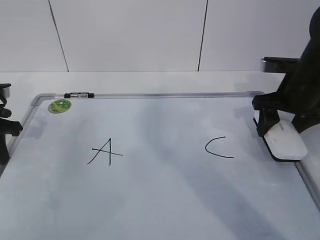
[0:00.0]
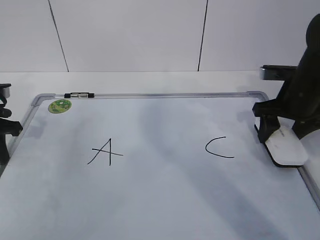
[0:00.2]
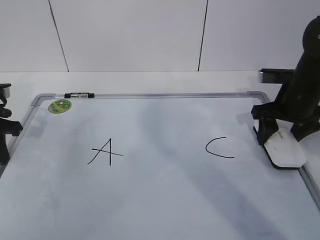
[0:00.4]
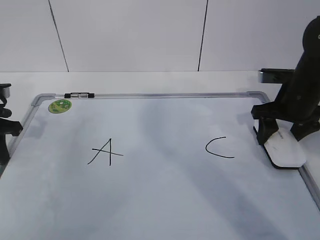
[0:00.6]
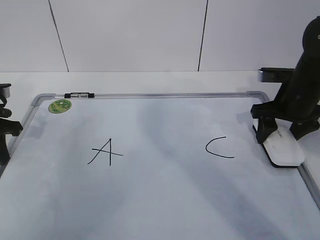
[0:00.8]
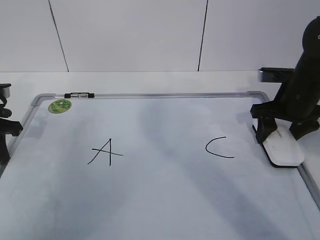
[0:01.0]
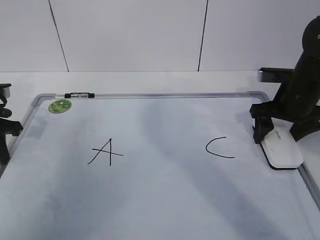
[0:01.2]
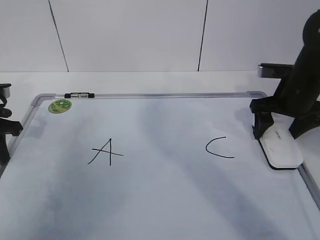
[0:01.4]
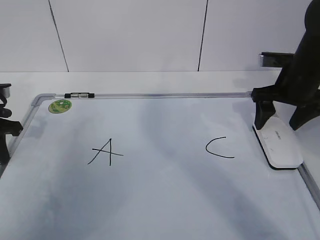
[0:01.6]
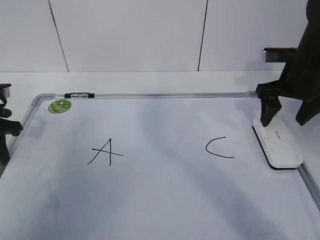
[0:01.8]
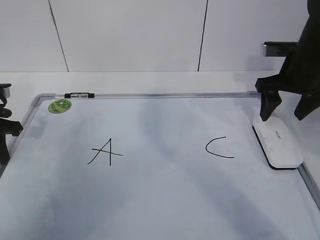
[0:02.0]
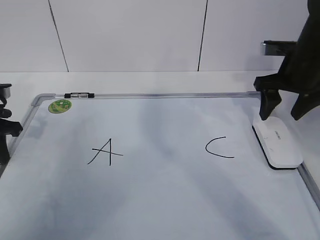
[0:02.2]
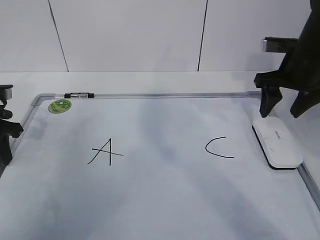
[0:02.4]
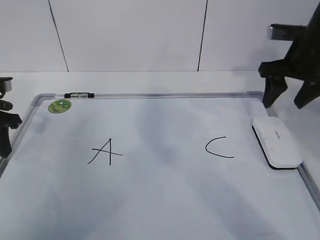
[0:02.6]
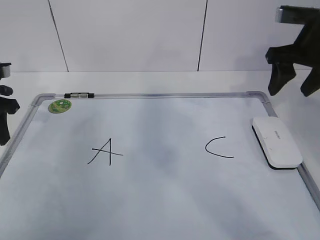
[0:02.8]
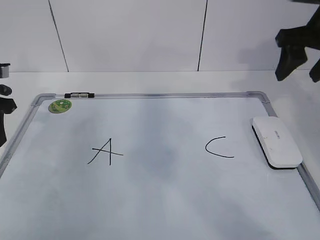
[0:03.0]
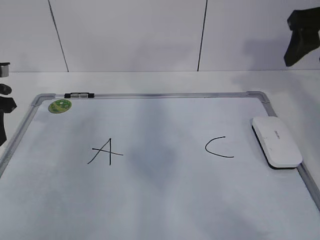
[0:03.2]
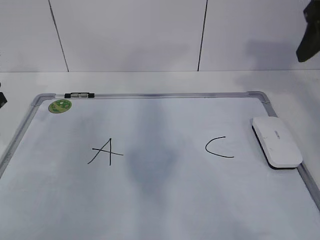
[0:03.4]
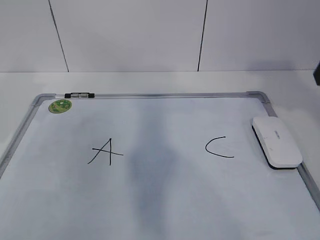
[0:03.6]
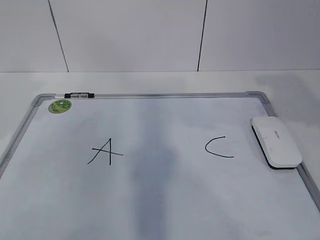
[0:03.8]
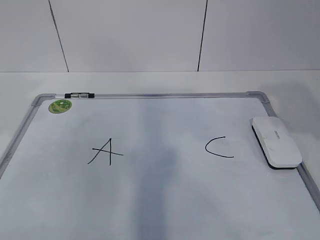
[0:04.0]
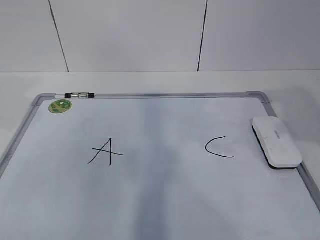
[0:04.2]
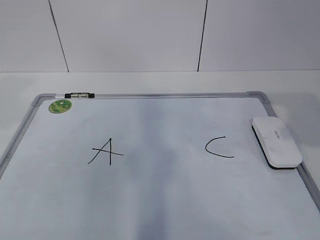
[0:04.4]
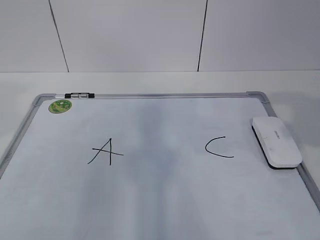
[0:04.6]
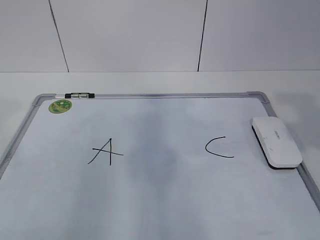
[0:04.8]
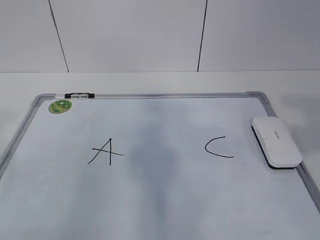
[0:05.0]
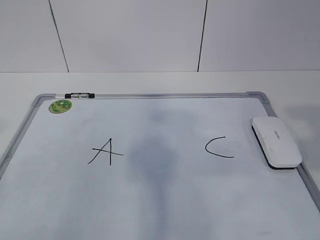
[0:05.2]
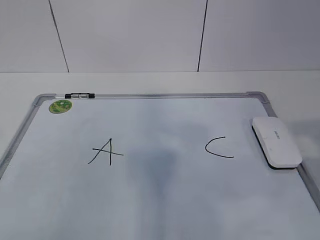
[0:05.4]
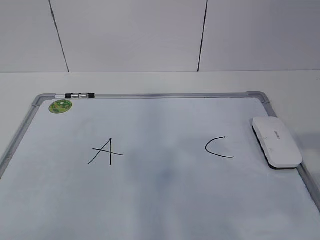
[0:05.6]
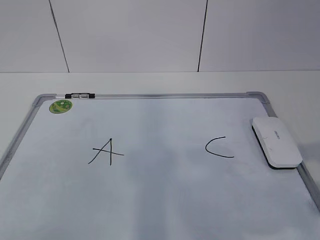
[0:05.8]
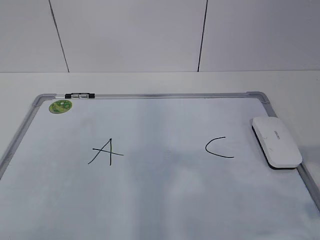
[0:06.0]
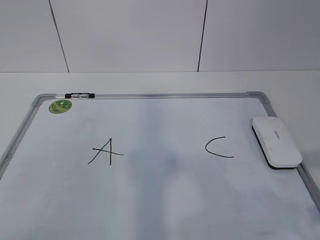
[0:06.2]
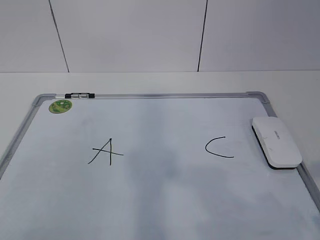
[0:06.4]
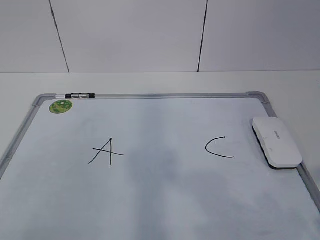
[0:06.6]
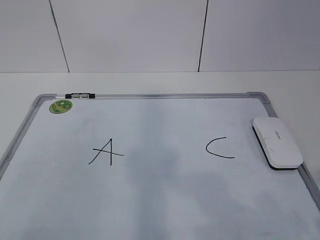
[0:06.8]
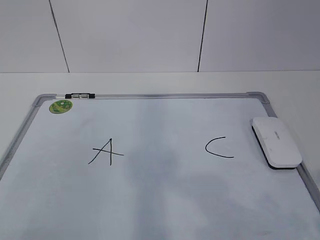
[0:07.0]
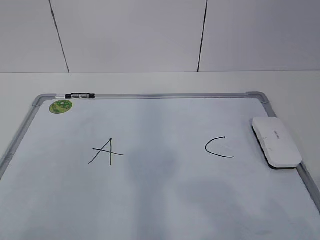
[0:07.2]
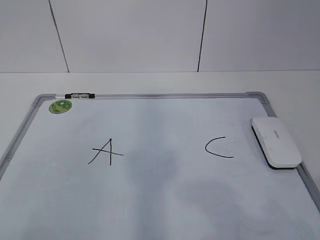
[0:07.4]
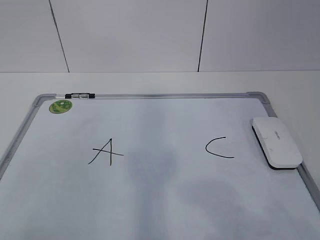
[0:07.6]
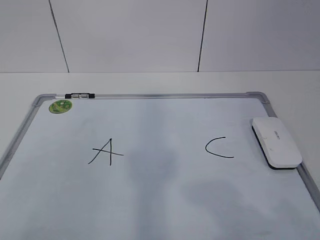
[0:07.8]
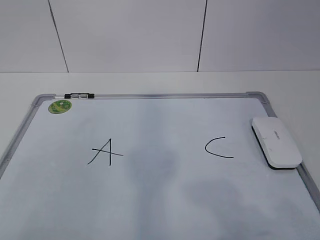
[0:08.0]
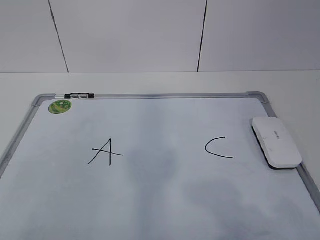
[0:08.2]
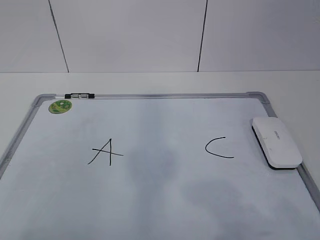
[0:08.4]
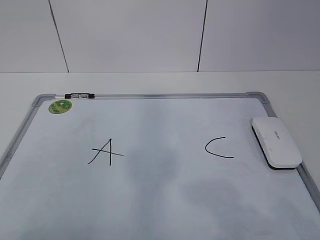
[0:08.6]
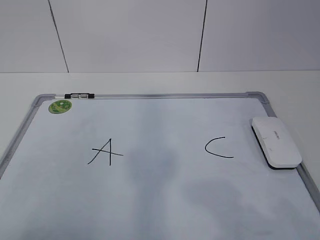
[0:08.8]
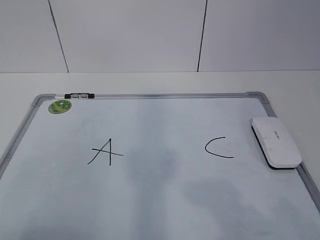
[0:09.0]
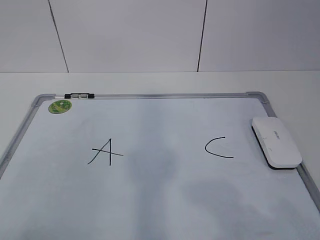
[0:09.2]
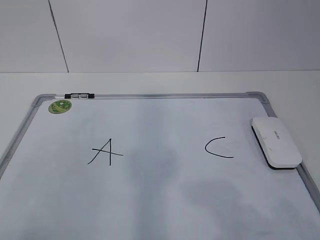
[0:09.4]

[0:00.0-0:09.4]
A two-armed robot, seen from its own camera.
Task of the whole recording: pick up the eraser on the blackboard and erase the letter "B".
0:00.0 to 0:01.6: The right gripper opens.
0:01.6 to 0:03.2: The left gripper opens. The right gripper goes approximately 15 cm upward, and closes its fingers.
0:03.2 to 0:04.8: The left gripper goes some 30 cm backward and upward. Meanwhile the right gripper moves backward, roughly 20 cm.
0:04.8 to 0:06.2: The right gripper travels backward and downward by about 15 cm.
0:07.8 to 0:09.4: The two grippers keep their place.
